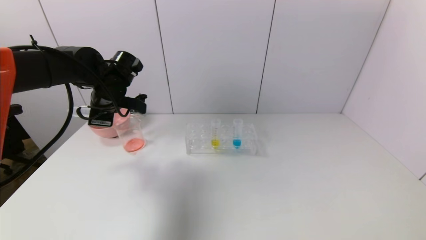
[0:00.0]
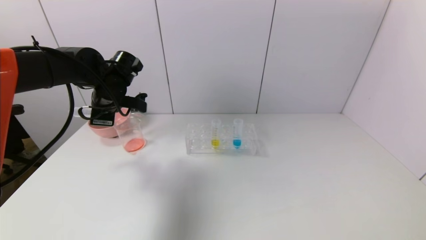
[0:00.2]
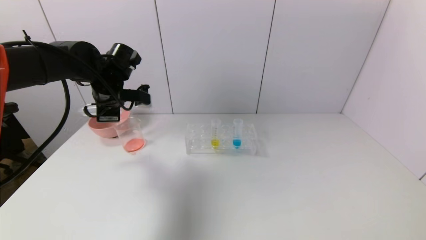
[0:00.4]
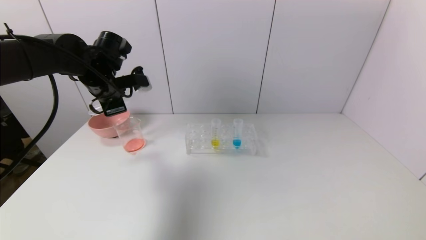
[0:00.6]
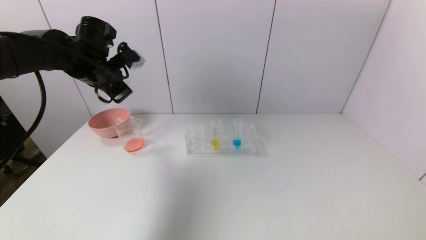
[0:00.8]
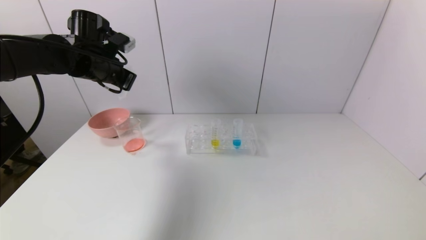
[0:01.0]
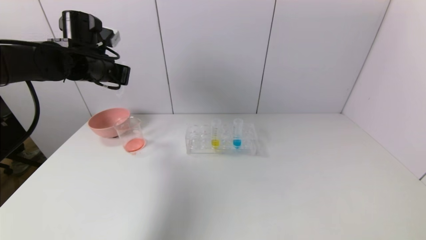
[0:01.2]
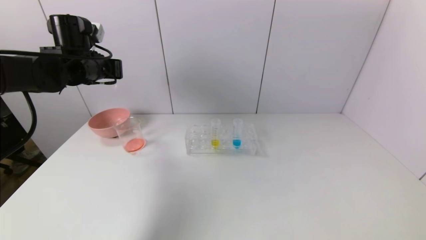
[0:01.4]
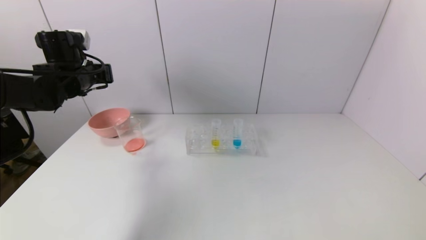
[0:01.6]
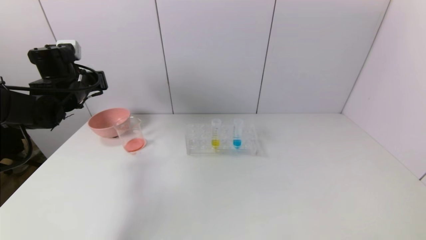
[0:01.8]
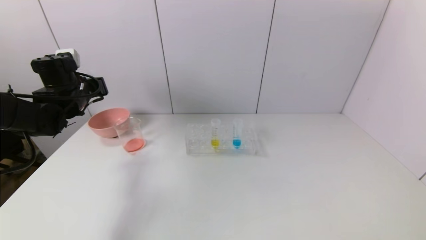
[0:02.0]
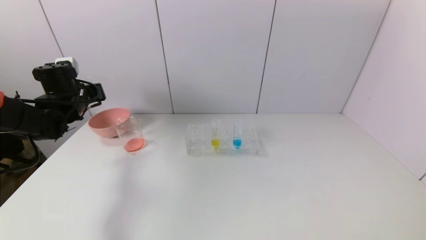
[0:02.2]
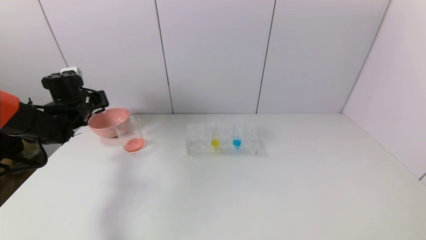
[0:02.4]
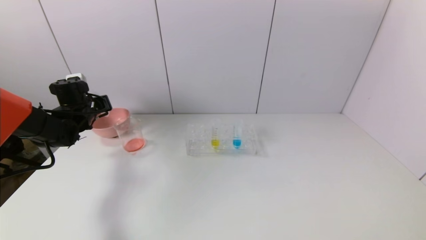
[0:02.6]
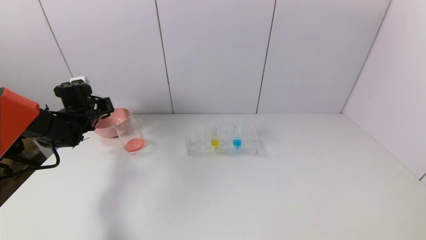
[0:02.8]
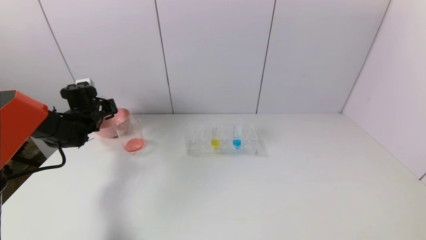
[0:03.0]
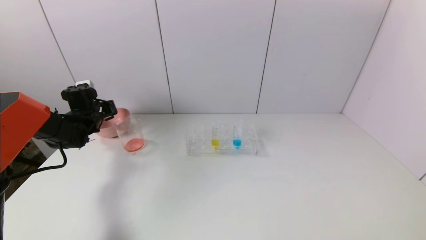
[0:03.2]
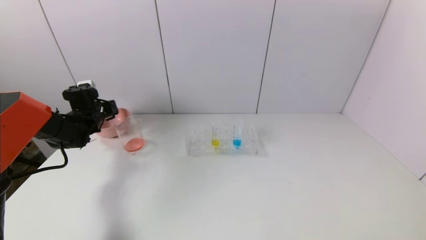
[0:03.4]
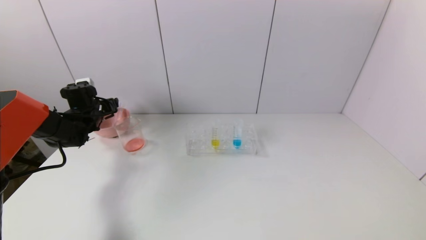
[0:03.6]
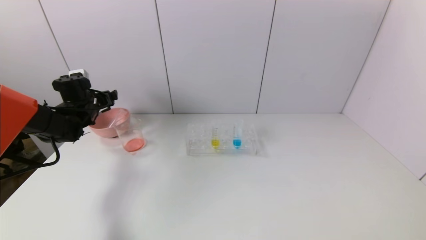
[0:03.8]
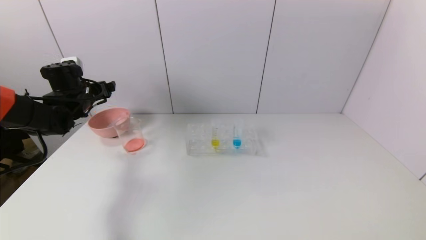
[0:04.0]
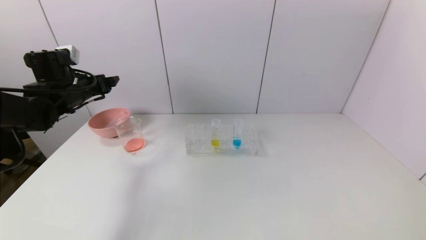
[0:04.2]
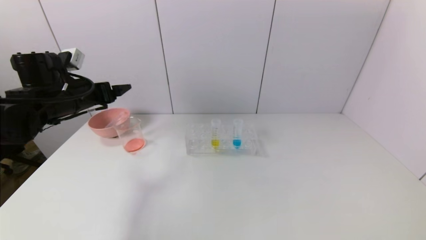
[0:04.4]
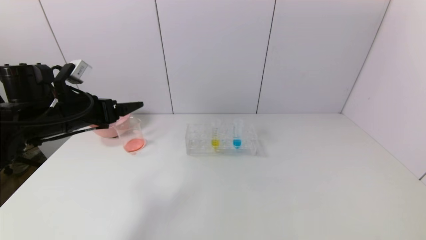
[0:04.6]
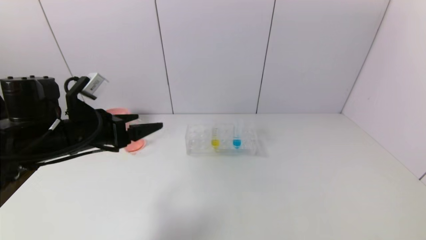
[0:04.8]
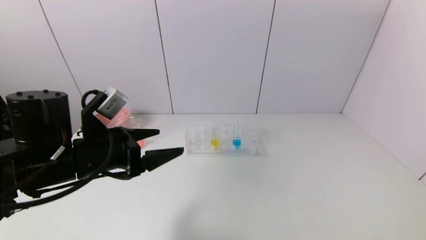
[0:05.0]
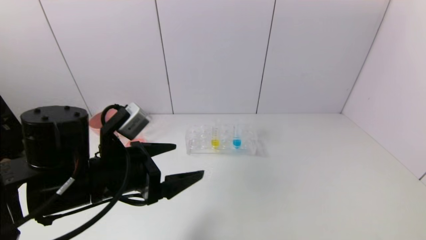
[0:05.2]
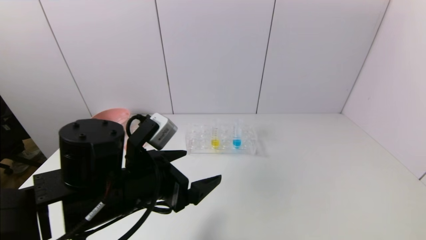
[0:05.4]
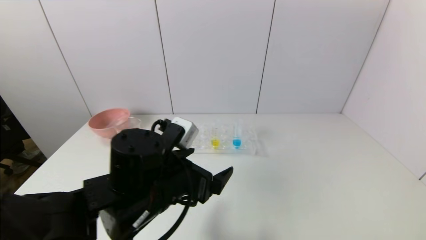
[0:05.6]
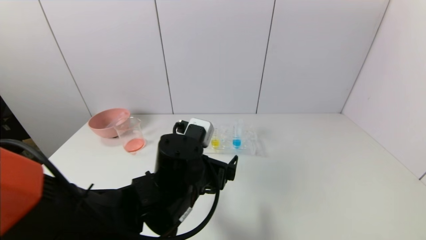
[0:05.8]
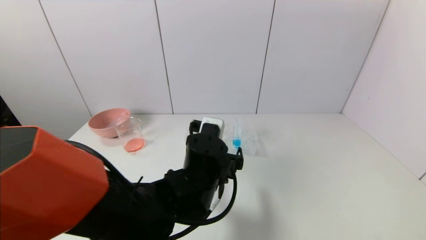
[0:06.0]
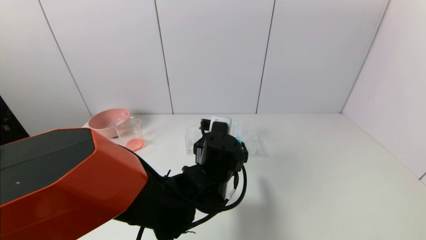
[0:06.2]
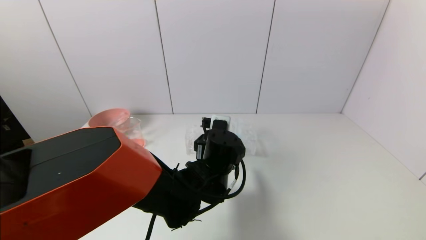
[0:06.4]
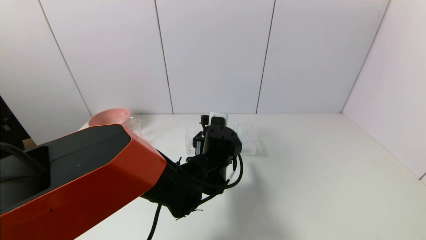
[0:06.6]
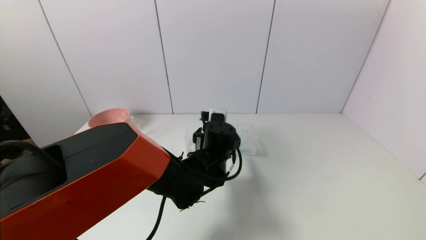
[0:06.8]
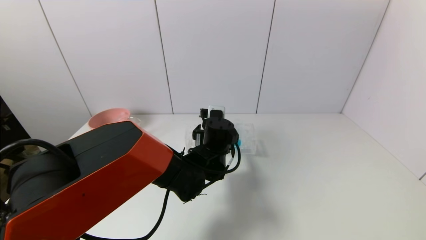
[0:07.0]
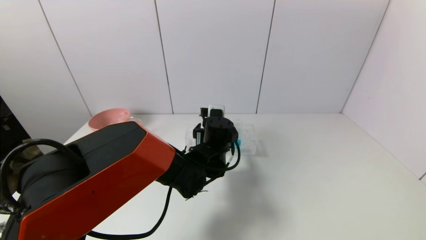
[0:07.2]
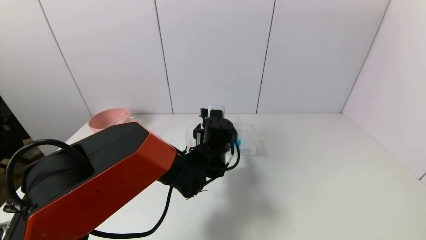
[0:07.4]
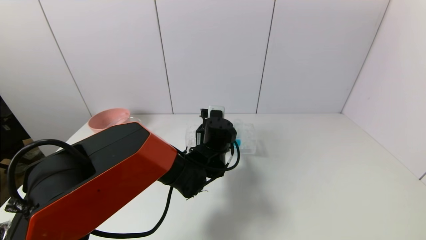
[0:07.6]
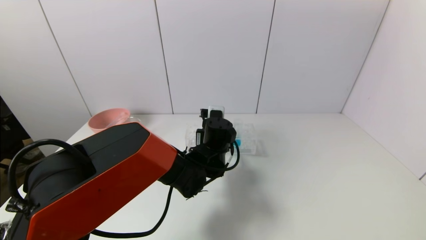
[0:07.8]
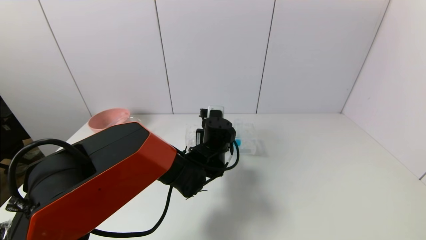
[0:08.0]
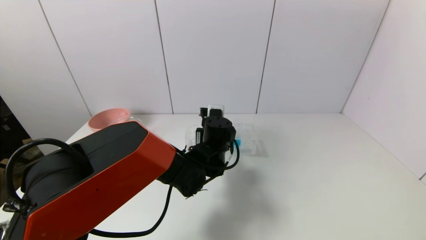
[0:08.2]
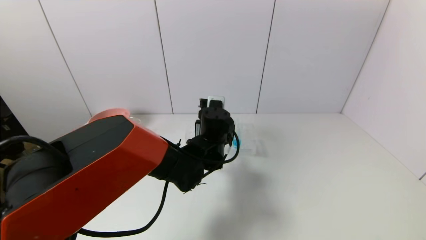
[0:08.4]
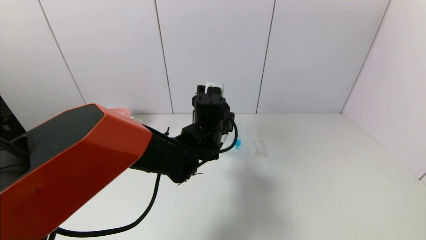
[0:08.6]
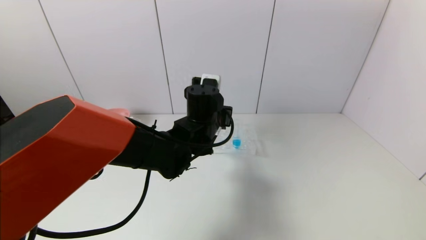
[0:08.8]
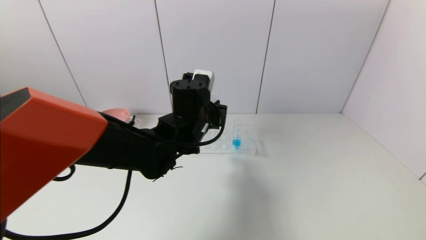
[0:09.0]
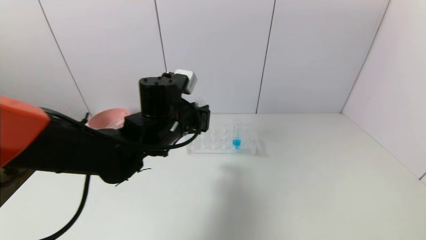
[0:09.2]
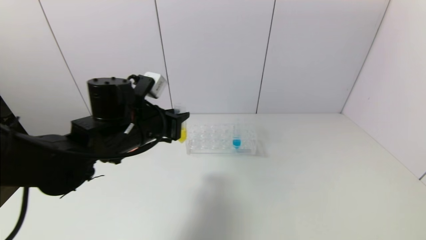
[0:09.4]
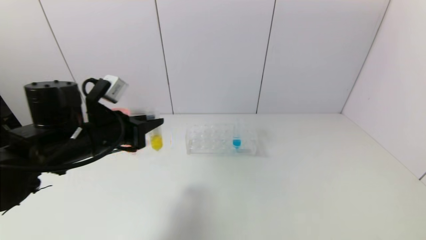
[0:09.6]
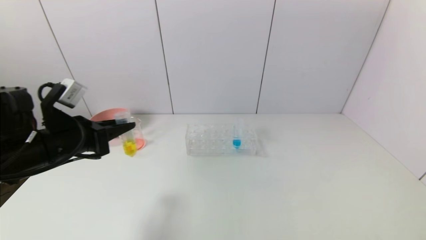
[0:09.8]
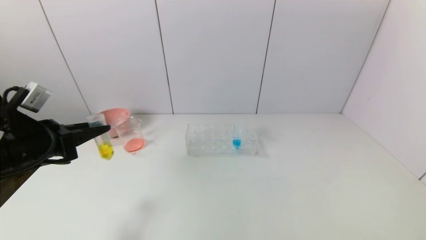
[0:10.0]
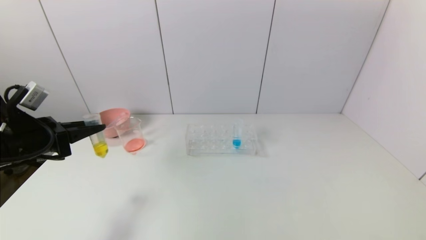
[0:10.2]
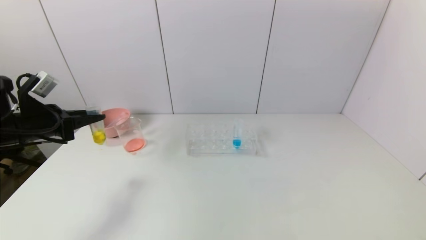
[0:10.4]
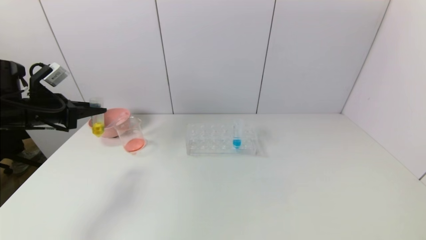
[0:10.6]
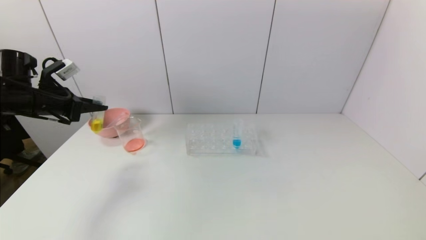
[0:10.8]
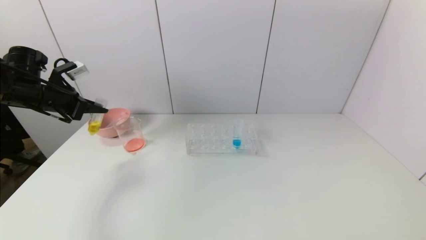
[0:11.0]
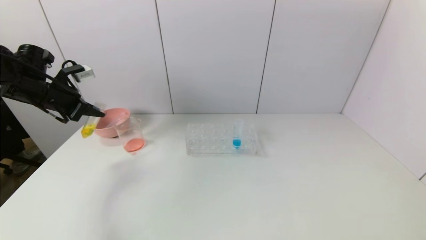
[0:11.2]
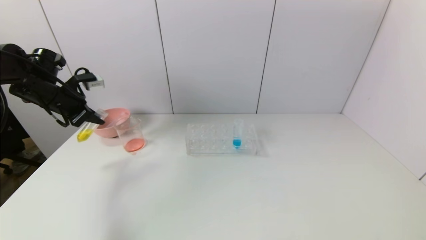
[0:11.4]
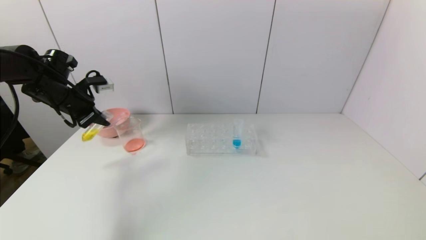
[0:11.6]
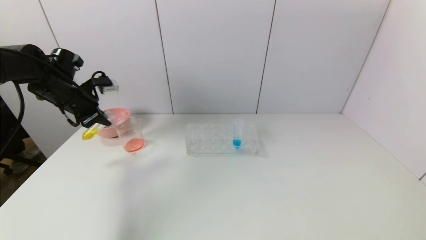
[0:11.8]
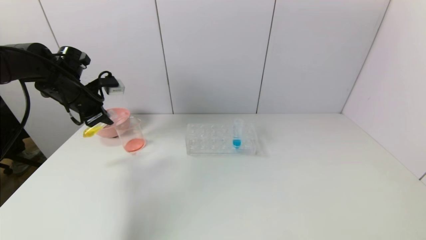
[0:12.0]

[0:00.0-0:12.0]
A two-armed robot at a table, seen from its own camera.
Task of the whole recording: pick up the test tube with yellow pigment and the test tube with red pigment by grippers and pour them into the beaker.
Step, 0:00.2 to 0:03.6: Place the test tube into the pink bowl with the left gripper.
Step, 0:03.8 to 0:08.0: Grasp the yellow reagent with the left gripper.
0:00.0 to 0:01.6: The left gripper heads to the left, covering about 5 cm.
0:01.6 to 0:03.0: The left gripper travels downward and forward by about 15 cm.
0:03.0 to 0:04.4: The left gripper moves backward, upward and to the right, some 15 cm, and opens its fingers.
0:04.4 to 0:06.0: The left gripper moves to the right, roughly 30 cm.
0:06.0 to 0:07.6: The left gripper heads forward, covering approximately 10 cm.
0:07.6 to 0:09.0: The left gripper goes about 10 cm upward, and closes its fingers.
0:09.0 to 0:10.4: The left gripper heads to the left, covering some 35 cm.
0:10.4 to 0:12.0: The left gripper shifts some 10 cm forward.

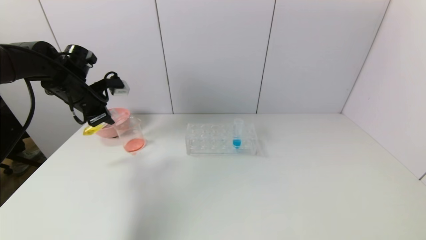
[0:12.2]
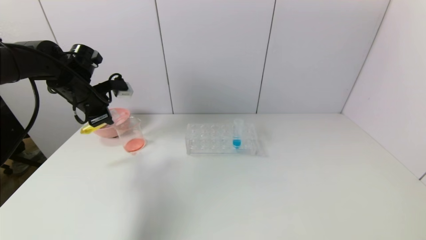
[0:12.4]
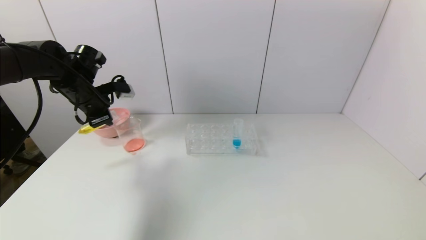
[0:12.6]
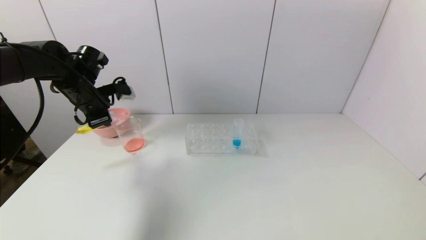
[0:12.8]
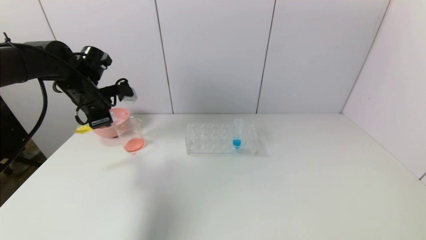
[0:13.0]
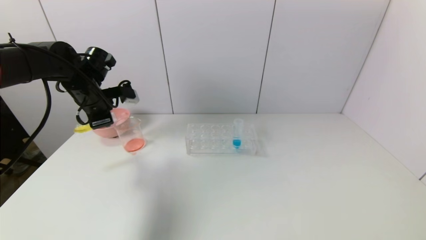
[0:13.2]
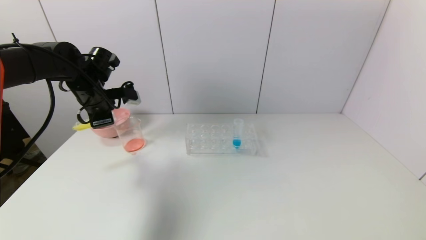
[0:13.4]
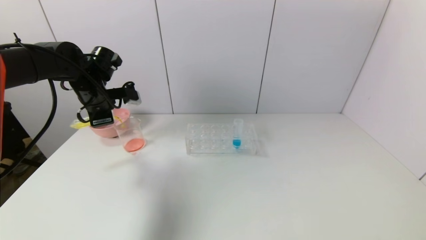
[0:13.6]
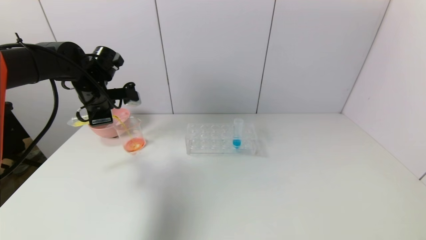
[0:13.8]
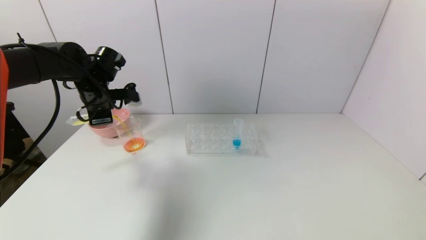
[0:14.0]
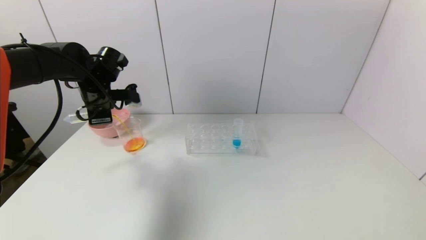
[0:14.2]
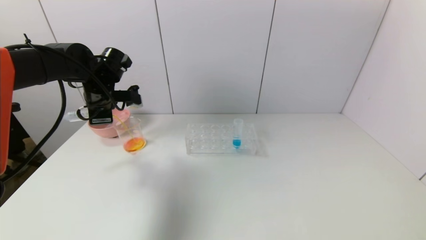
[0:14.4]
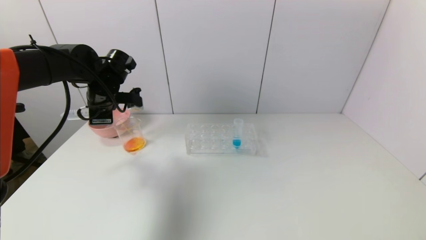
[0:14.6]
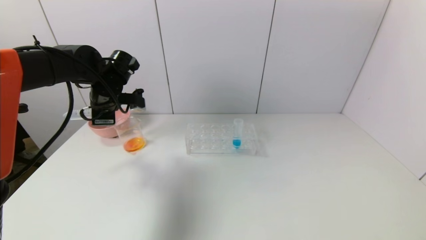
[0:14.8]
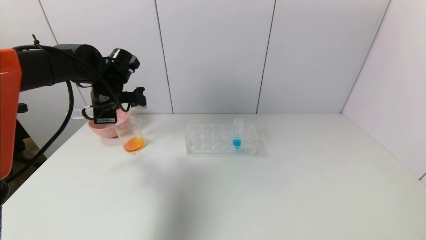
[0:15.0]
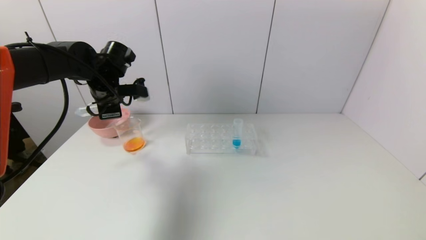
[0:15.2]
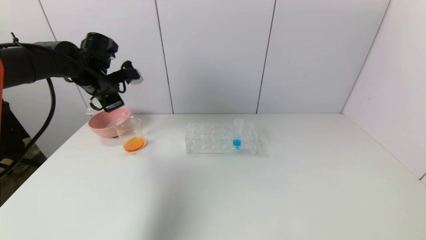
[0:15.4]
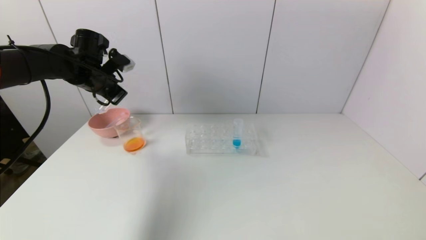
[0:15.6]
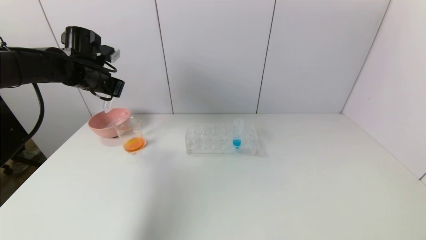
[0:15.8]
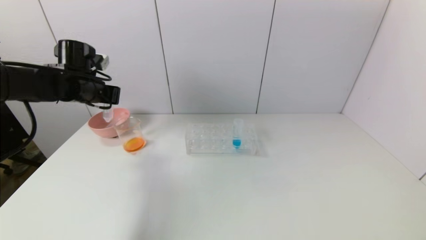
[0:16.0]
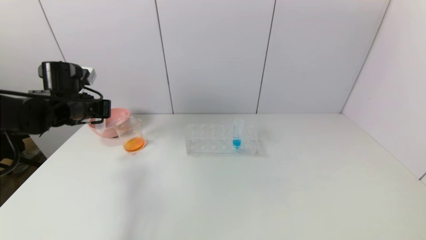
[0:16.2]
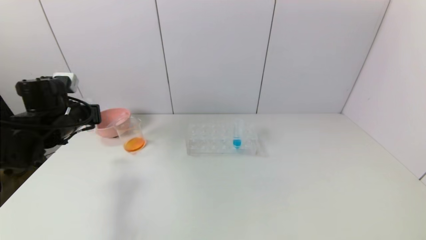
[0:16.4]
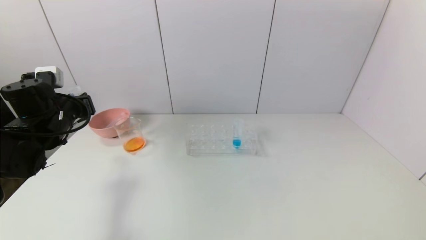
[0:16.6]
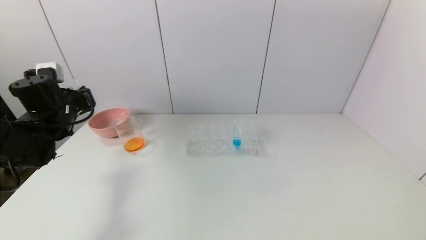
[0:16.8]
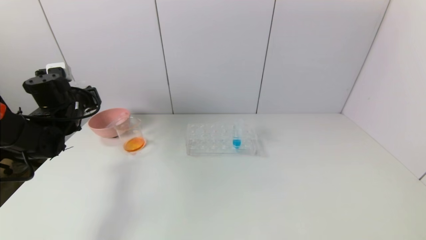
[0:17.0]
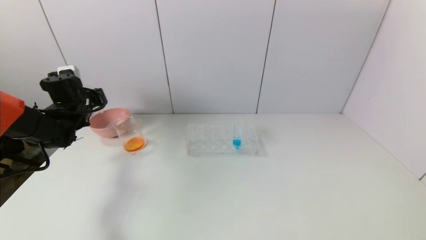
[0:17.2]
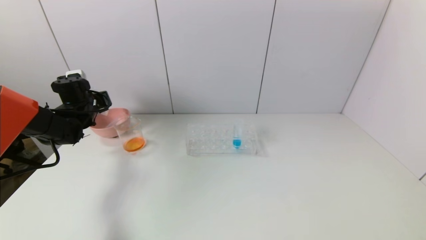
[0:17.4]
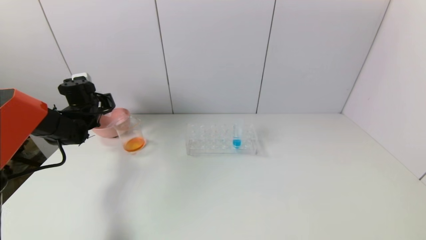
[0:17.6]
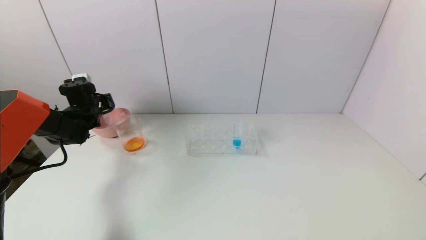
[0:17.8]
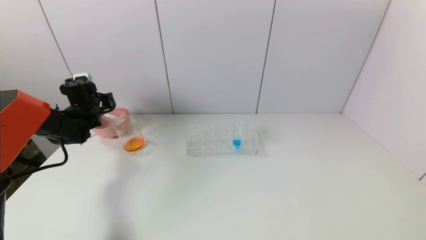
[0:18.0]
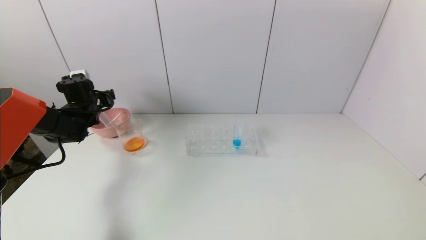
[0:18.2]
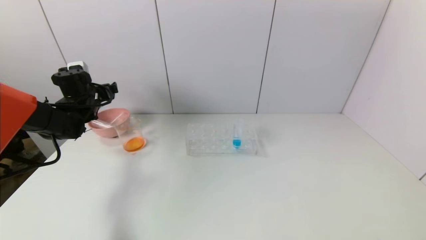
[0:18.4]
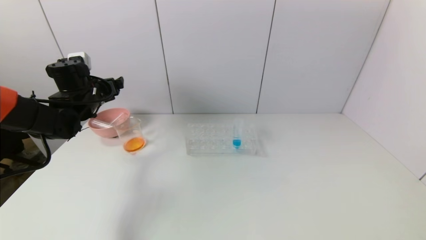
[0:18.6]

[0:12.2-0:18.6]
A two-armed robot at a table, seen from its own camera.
Task of the whole recording: pick up the test tube with yellow pigment and the test tube with red pigment by grippers and pour them into the beaker.
Step, 0:12.2 to 0:14.8: Pour the yellow reagent into the graduated cylinder with the left gripper.
Step, 0:15.0 to 0:18.2: Place the test tube into the pink bowl with the left gripper.
0:15.4 to 0:17.0: The left gripper moves to the left and downward, some 10 cm, and travels backward and back again, roughly 10 cm each way.
0:17.0 to 0:18.6: The left gripper changes place by some 5 cm, and opens up.
